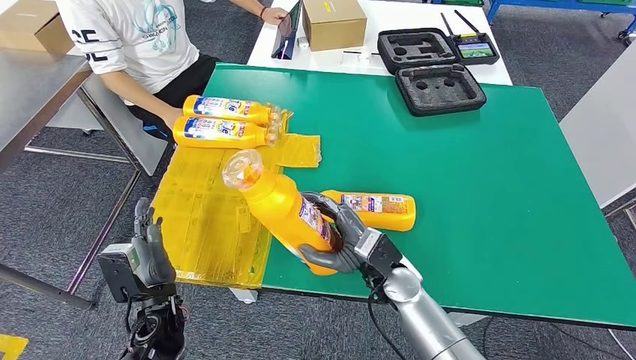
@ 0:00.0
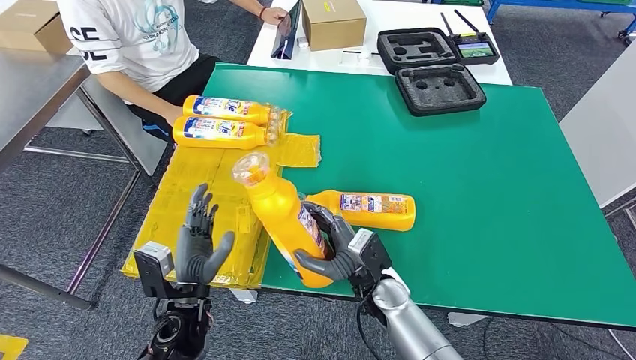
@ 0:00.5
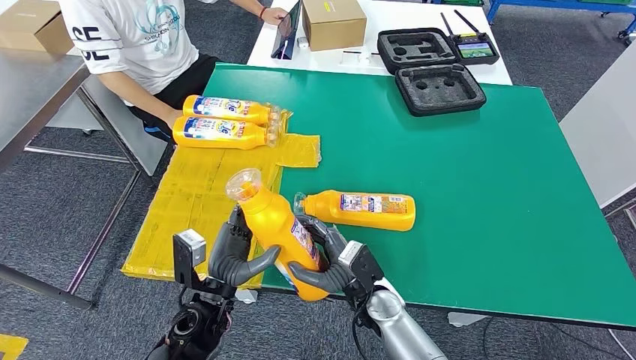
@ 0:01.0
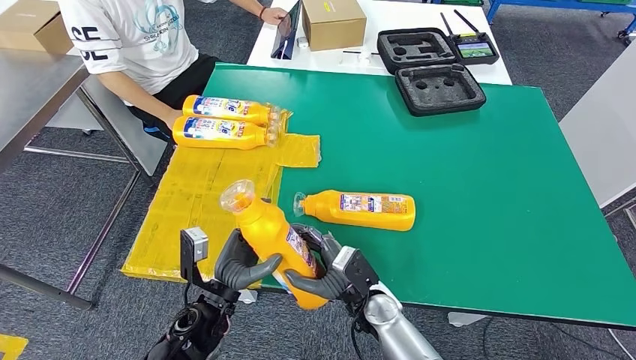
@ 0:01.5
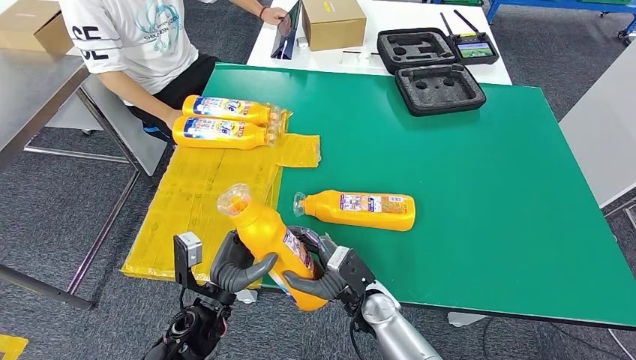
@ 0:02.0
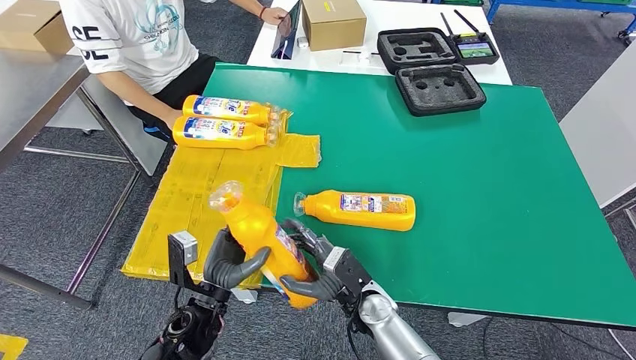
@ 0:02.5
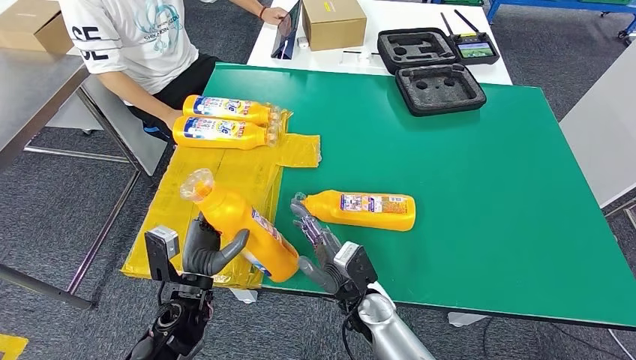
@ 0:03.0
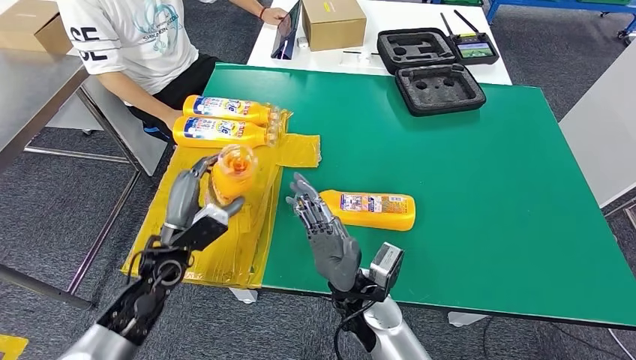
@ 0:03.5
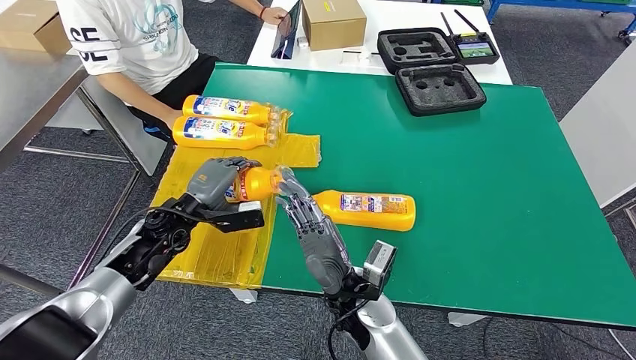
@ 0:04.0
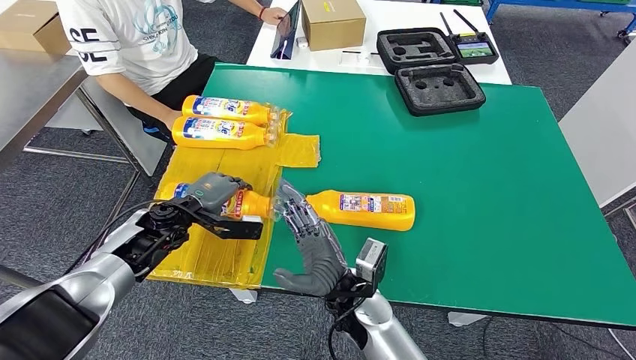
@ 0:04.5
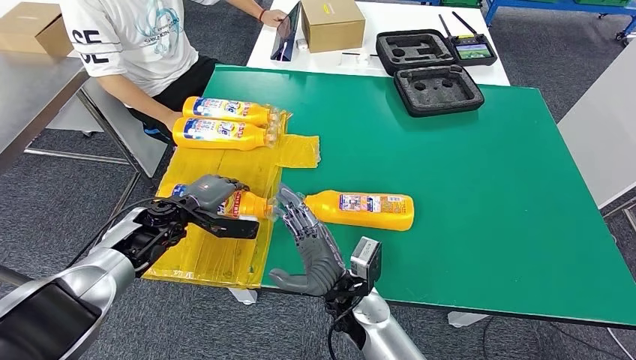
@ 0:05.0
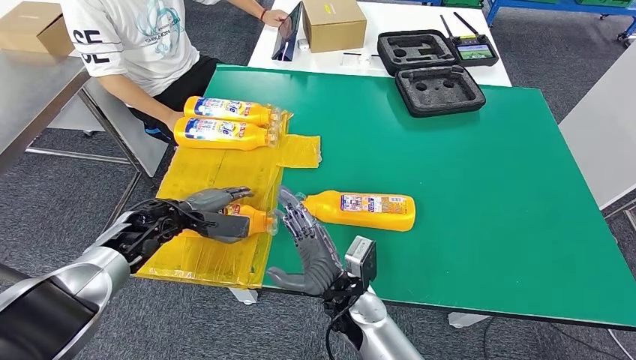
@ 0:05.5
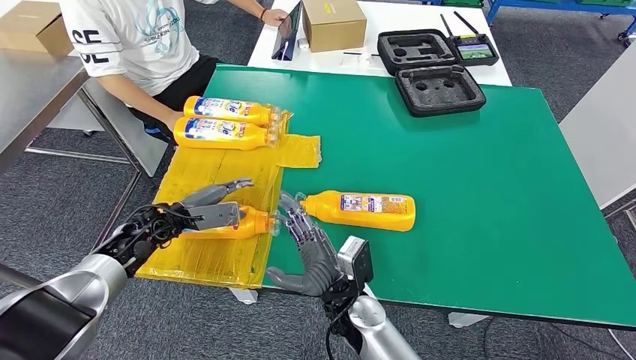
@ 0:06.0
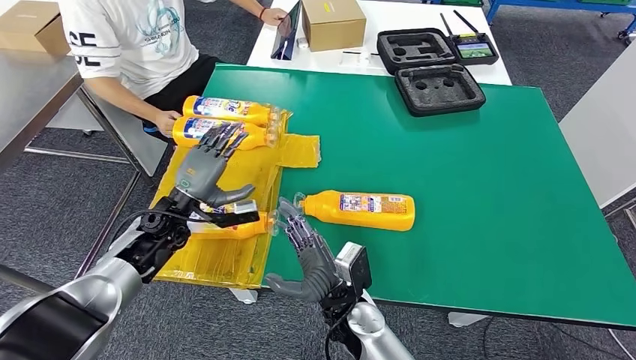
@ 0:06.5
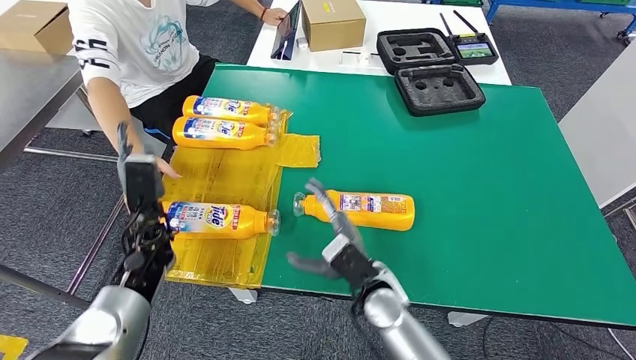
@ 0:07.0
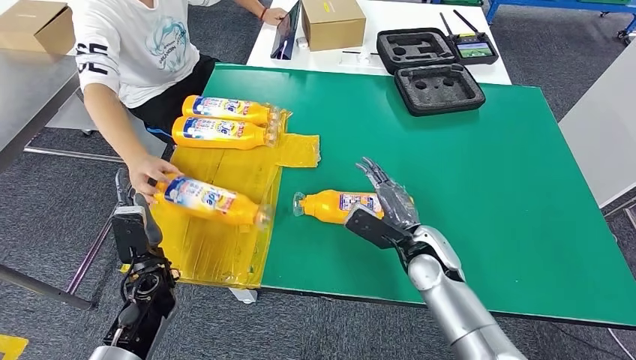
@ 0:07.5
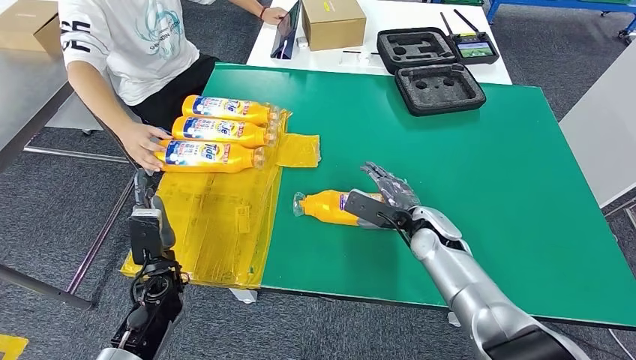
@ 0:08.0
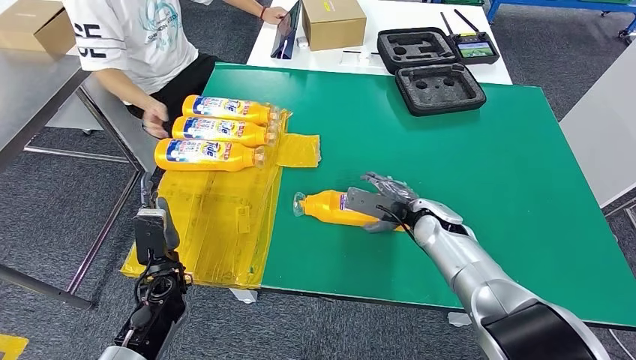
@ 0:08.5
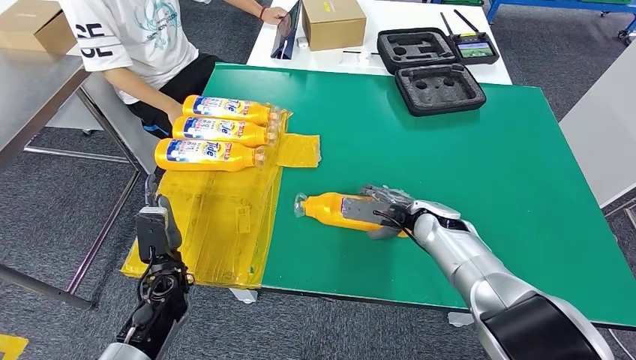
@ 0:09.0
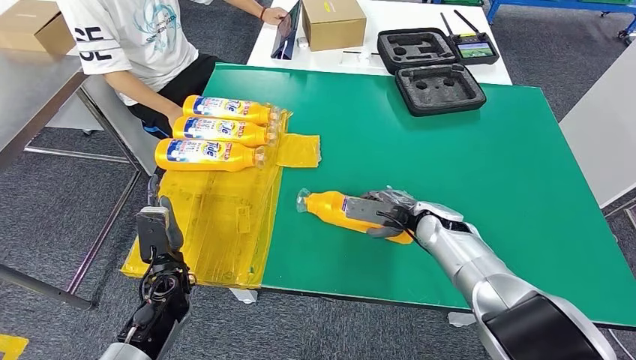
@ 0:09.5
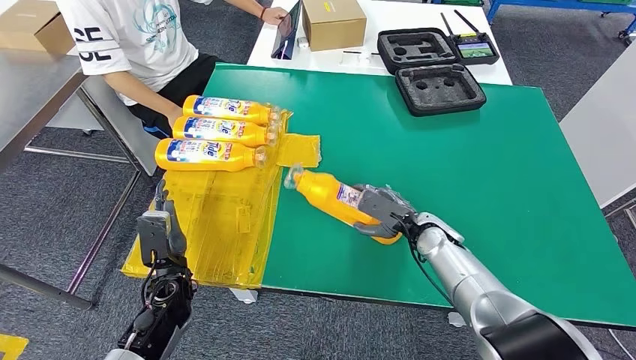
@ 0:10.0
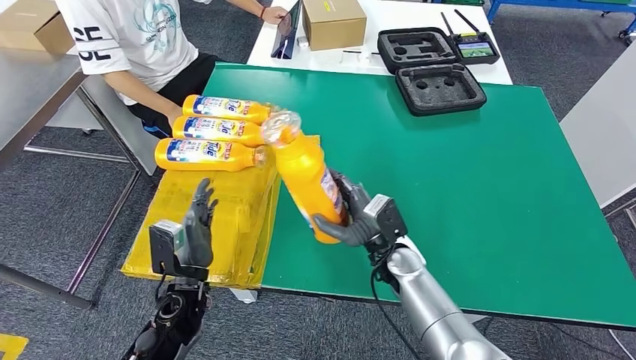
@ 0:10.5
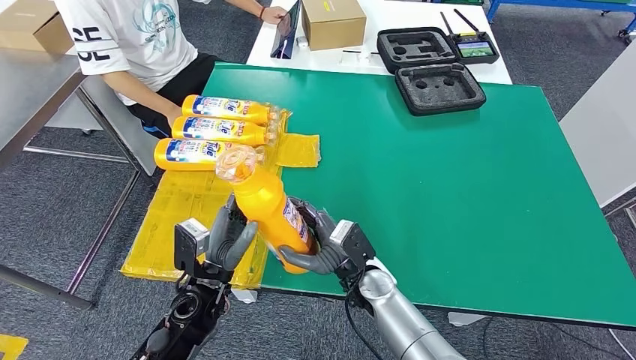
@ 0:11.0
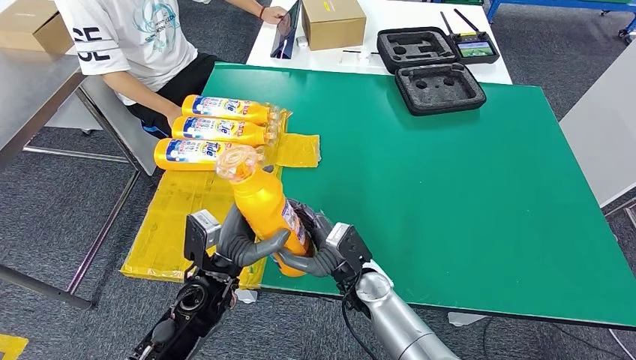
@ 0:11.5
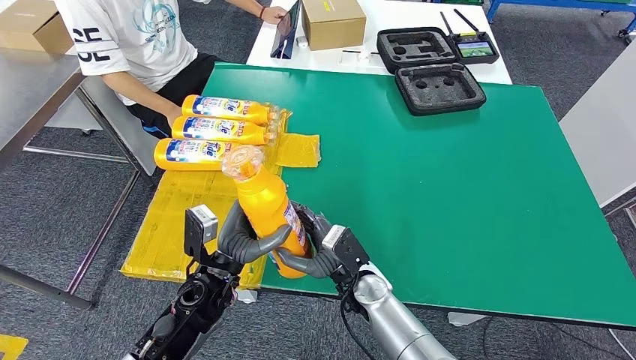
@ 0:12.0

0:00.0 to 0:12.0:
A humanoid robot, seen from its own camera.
Step, 0:01.0 to 0:04.5: Flip the fast-moving consumer goods bottle to the front side.
Step, 0:08.0 to 0:11.5: Pick up the fast-moving consumer goods bottle from the table.
0:00.0 to 0:02.0: The left hand heads to the right, covering about 10 cm, while the right hand moves downward, some 5 cm.
0:02.0 to 0:04.0: The left hand goes about 20 cm forward, to the left and upward. The right hand heads upward, covering approximately 10 cm.
0:04.0 to 0:06.0: The left hand moves approximately 5 cm.
0:10.0 to 0:12.0: The right hand heads to the left and backward, covering approximately 15 cm. The left hand is displaced to the right and upward by roughly 10 cm.

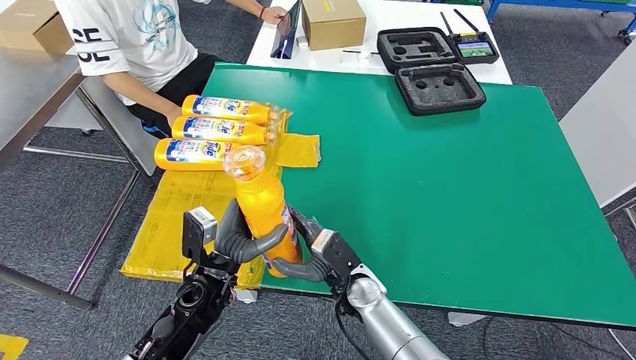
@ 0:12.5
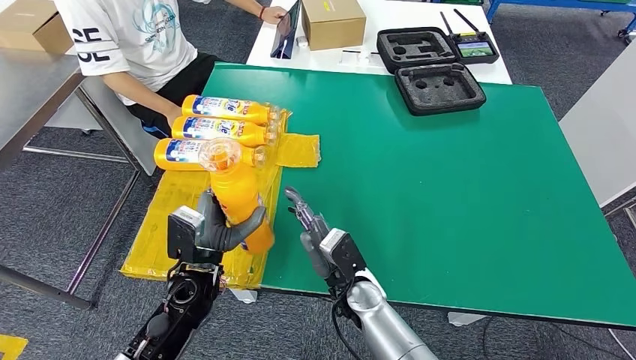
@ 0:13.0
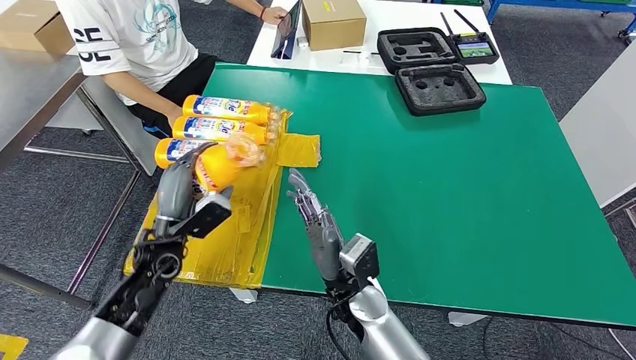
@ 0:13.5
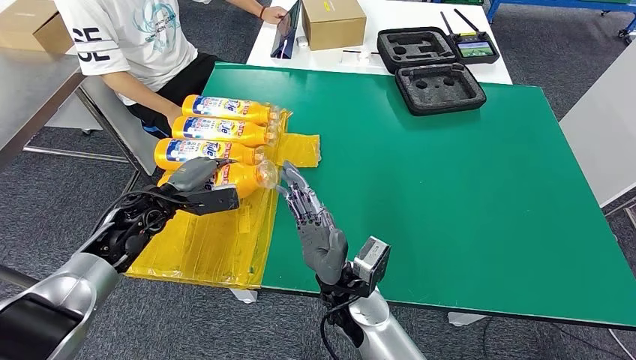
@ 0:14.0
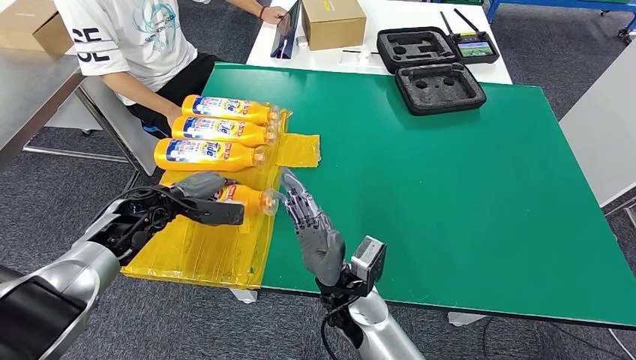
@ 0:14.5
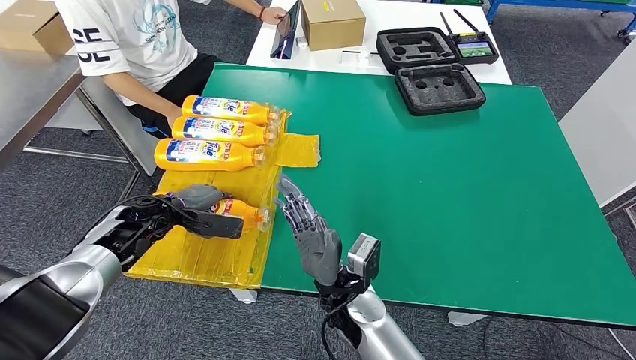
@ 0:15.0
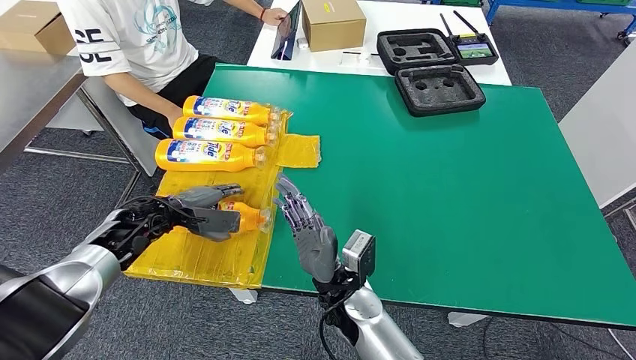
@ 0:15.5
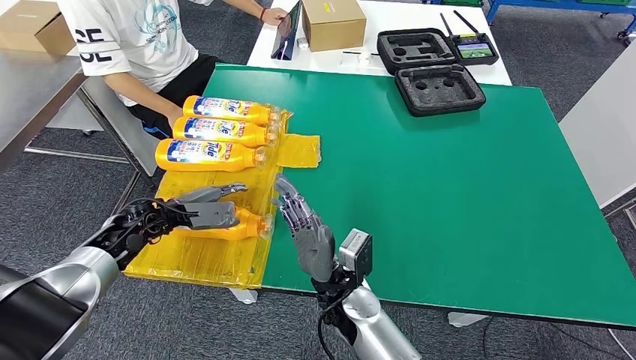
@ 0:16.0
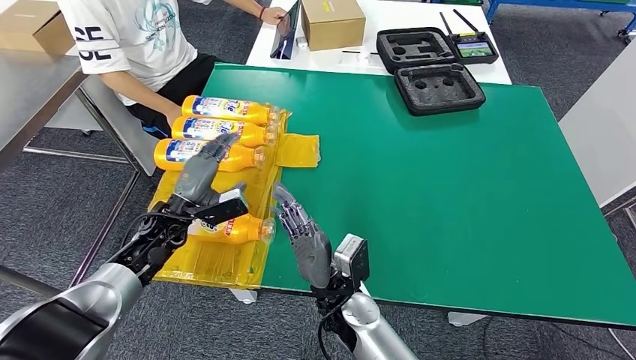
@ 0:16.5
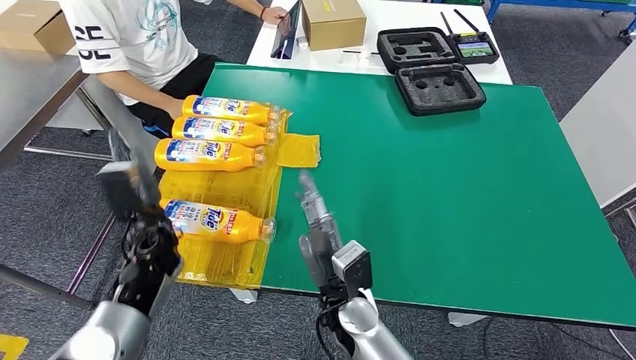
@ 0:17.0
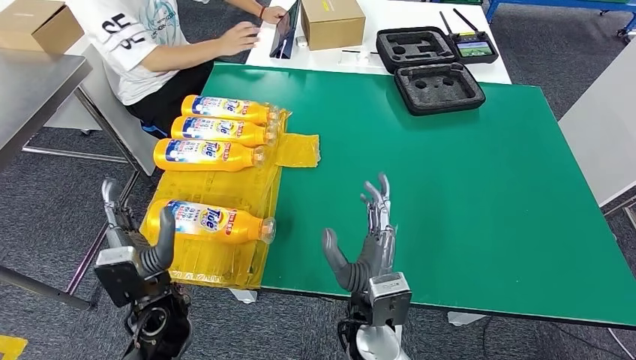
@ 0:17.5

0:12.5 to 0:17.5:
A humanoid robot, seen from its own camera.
Step, 0:12.5 to 0:17.5: Flip the fast-moving consumer goods bottle to the front side.
0:12.5 to 0:15.0: The right hand goes some 5 cm upward. Meanwhile the left hand goes roughly 20 cm to the left and forward.
